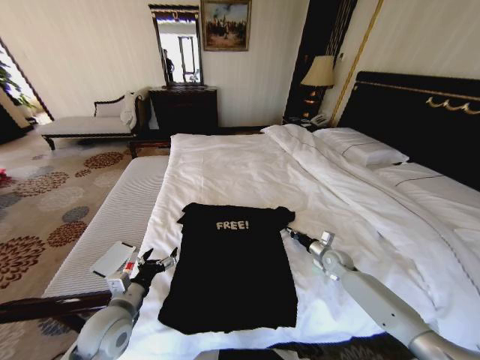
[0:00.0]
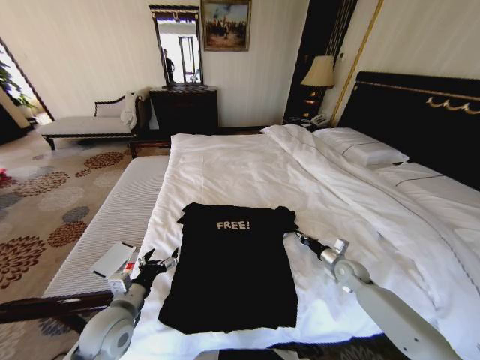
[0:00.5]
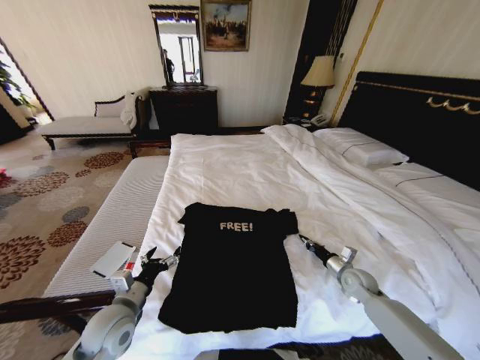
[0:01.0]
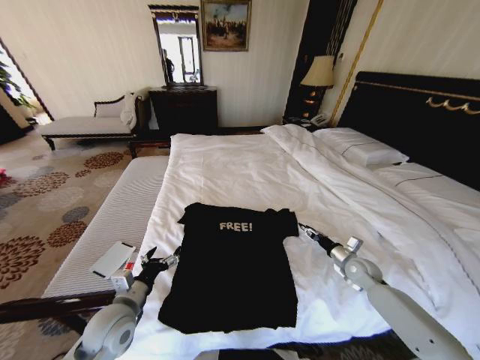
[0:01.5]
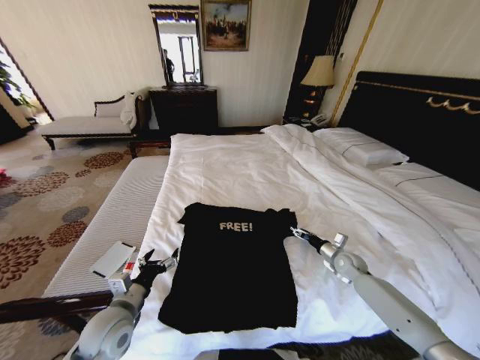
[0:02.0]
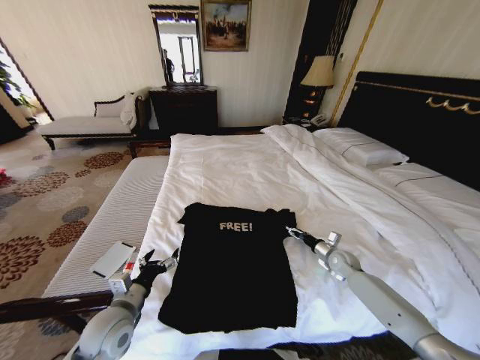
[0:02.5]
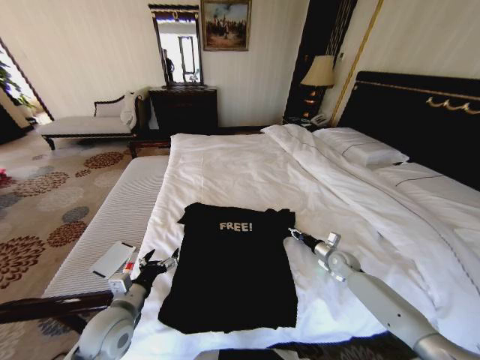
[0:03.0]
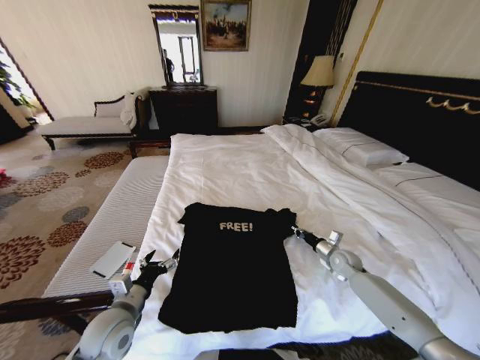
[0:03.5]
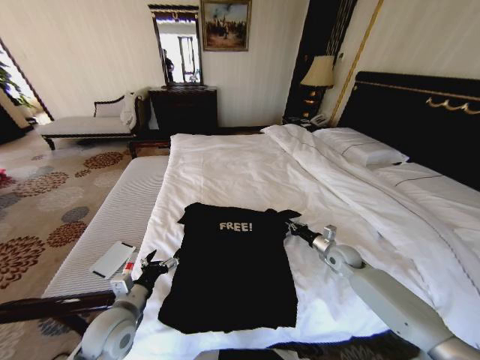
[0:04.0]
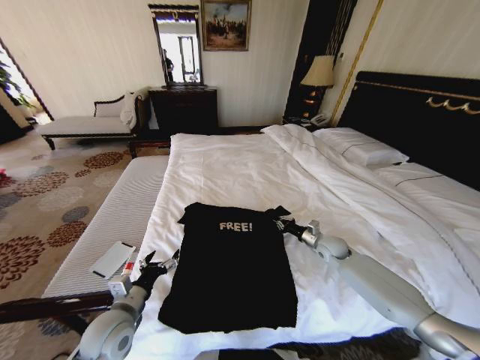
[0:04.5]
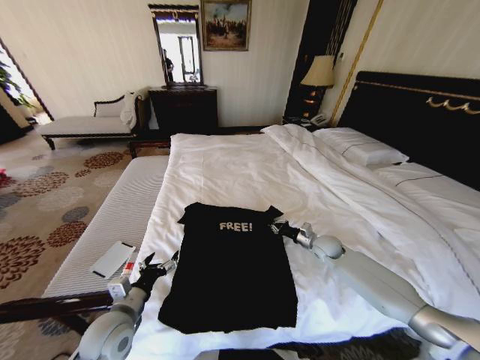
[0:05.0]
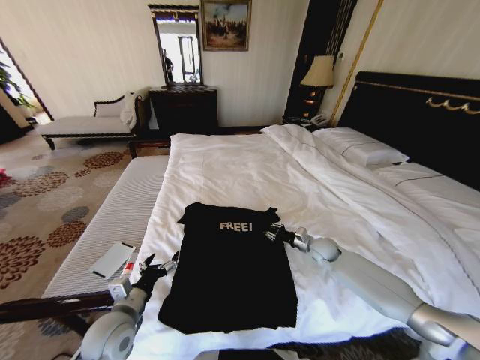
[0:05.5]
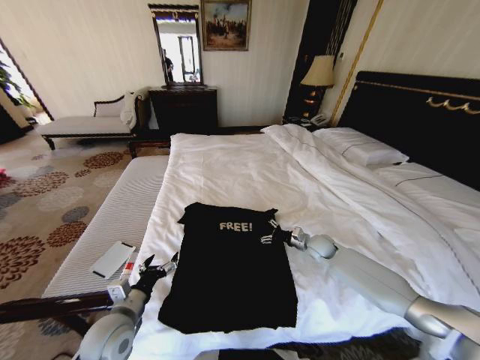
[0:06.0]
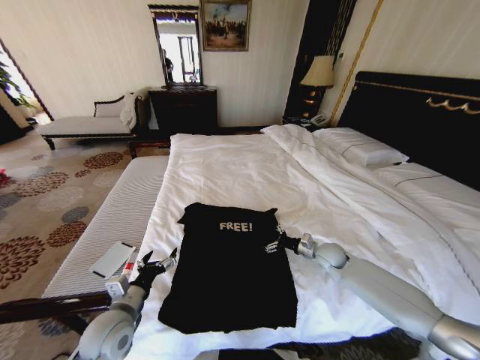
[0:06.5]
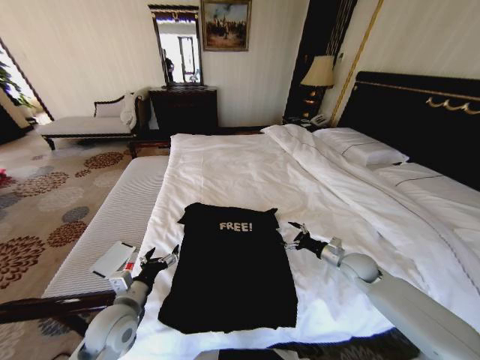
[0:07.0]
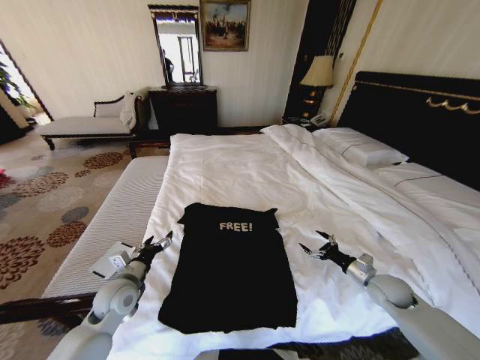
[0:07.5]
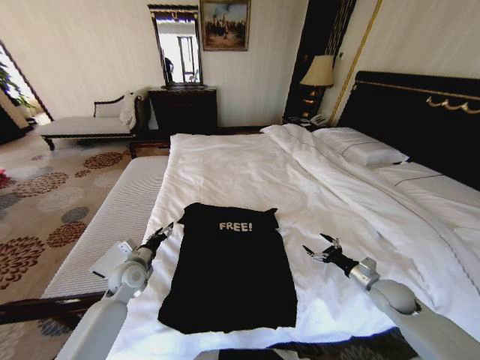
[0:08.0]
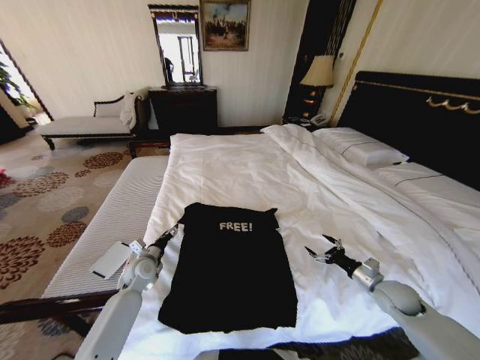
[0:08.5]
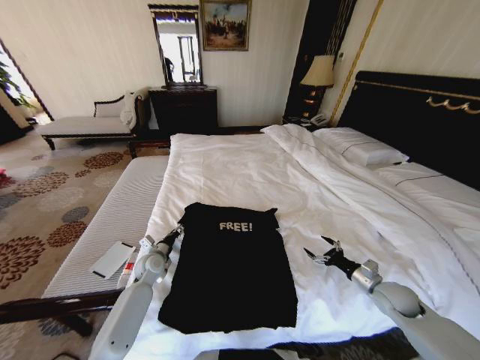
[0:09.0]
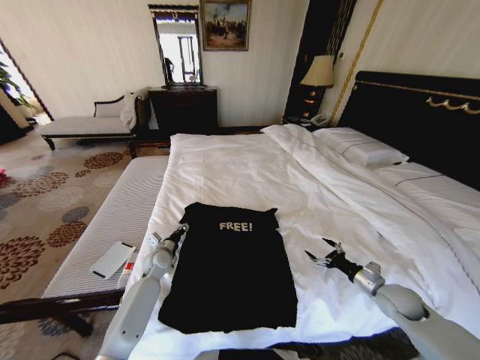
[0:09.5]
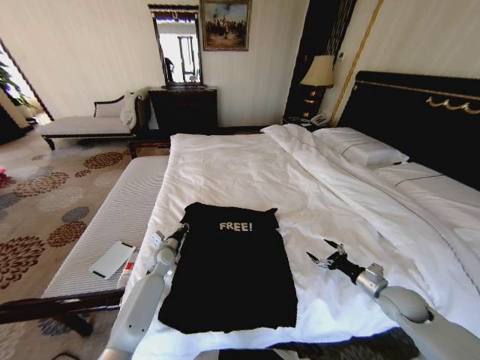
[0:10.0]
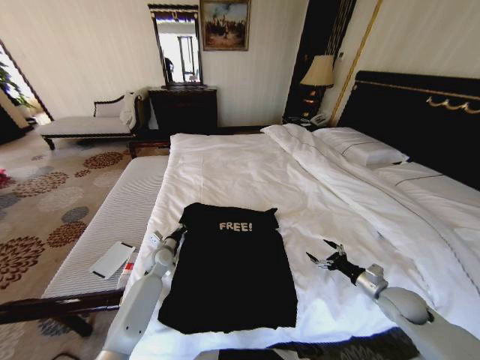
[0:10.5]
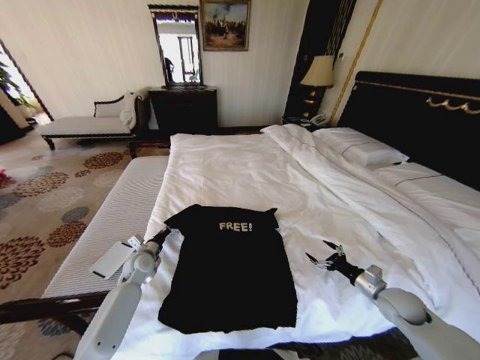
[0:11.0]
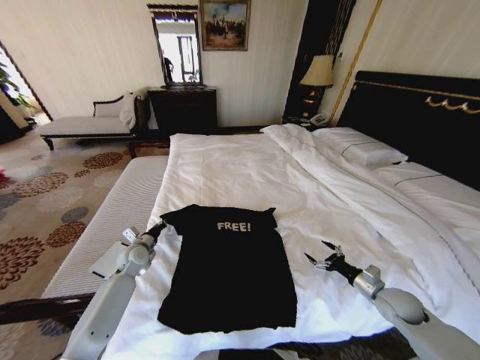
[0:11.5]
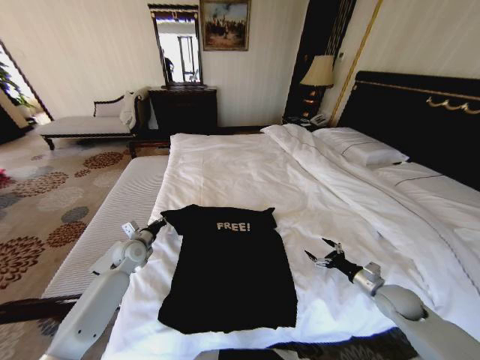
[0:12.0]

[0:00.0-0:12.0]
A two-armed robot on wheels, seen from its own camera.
Task of the whole recording: Fold the clothes on the bed.
0:00.0 to 0:02.0: The right gripper travels backward and back again, roughly 10 cm each way, and opens.
0:02.0 to 0:04.0: The right gripper changes place by roughly 5 cm, and closes.
0:04.0 to 0:06.0: The right gripper is displaced to the left by approximately 5 cm, and opens its fingers.
0:06.0 to 0:08.0: The left gripper shifts about 15 cm forward, while the right gripper moves backward and to the right, some 20 cm.
0:08.0 to 0:10.0: The left gripper is displaced forward, downward and to the right by some 10 cm, and closes its fingers.
0:10.0 to 0:12.0: The left gripper moves to the left and upward, approximately 10 cm.

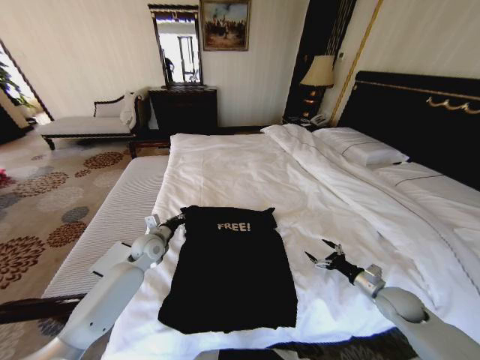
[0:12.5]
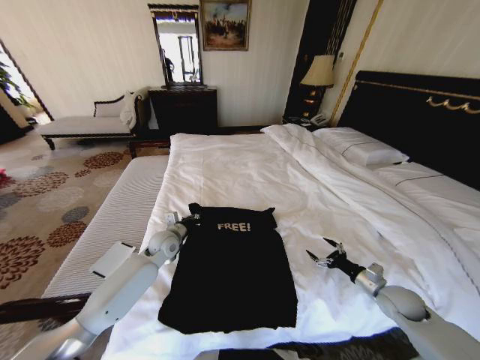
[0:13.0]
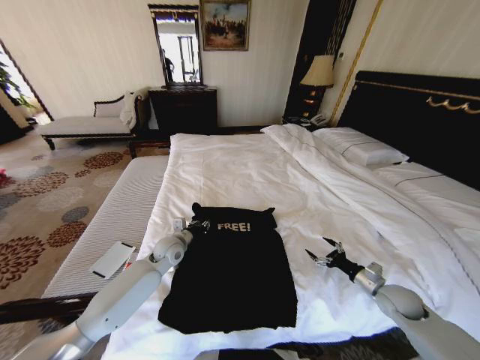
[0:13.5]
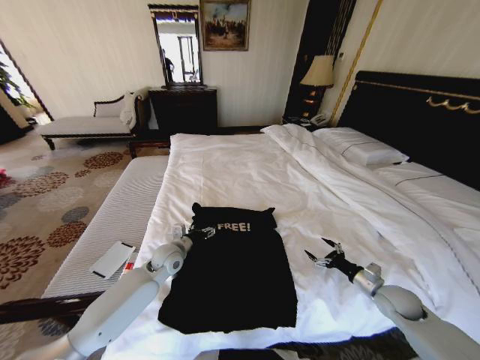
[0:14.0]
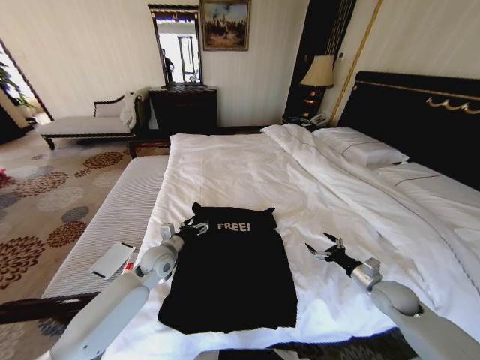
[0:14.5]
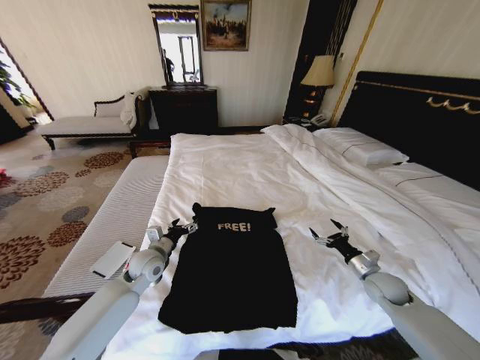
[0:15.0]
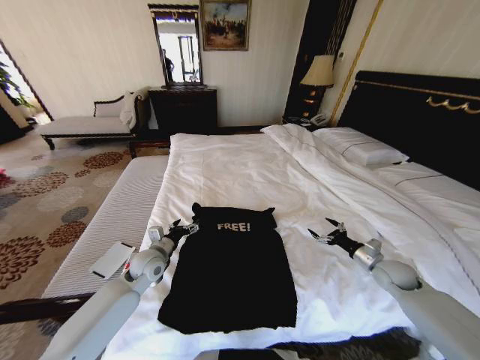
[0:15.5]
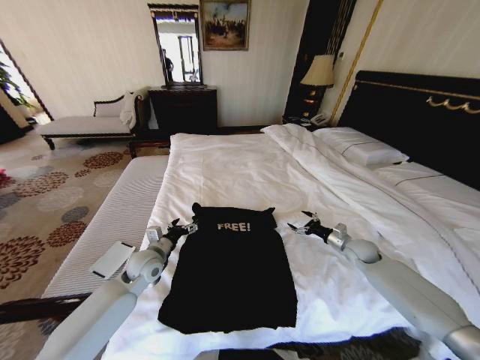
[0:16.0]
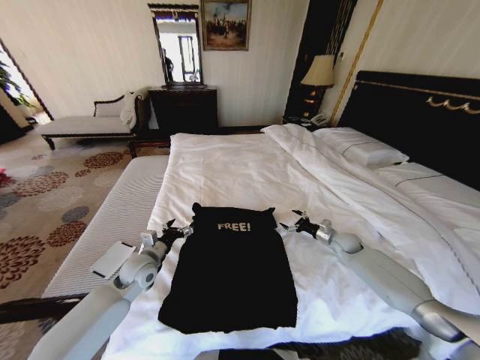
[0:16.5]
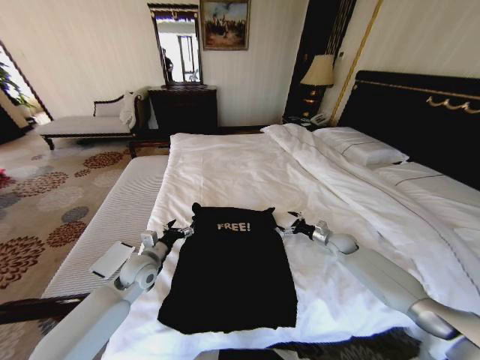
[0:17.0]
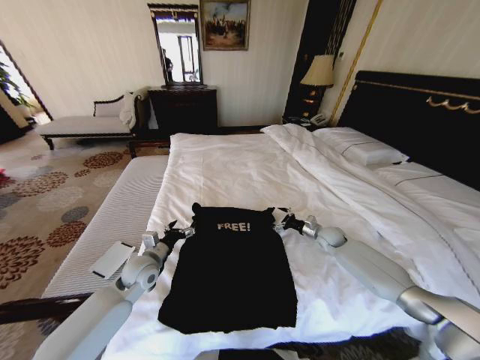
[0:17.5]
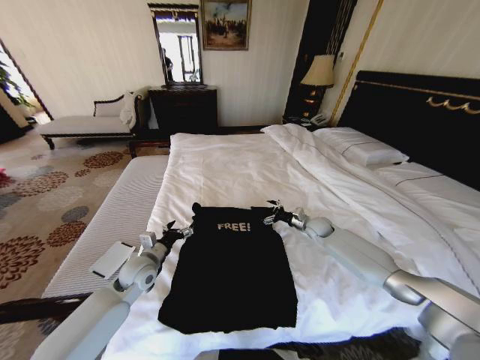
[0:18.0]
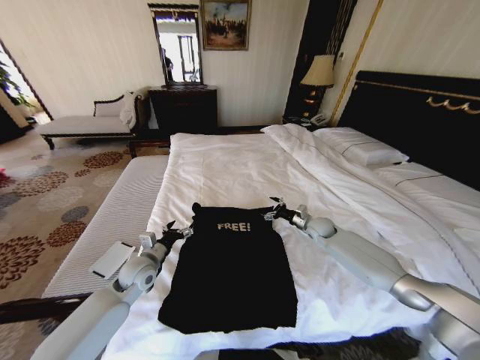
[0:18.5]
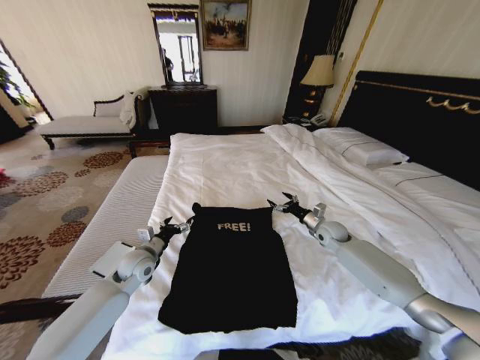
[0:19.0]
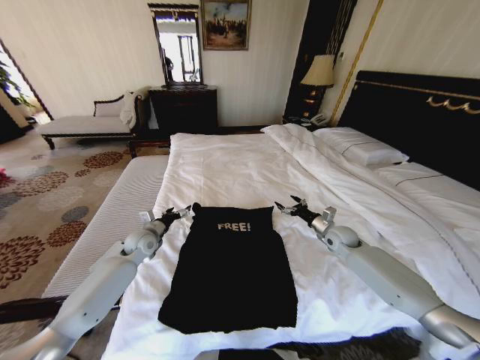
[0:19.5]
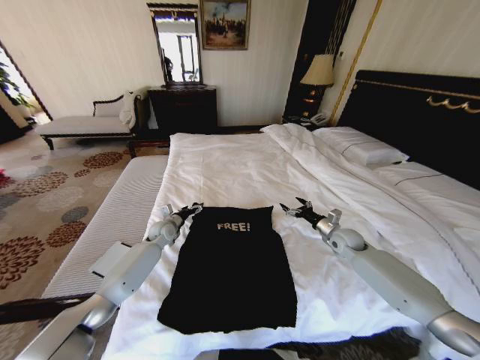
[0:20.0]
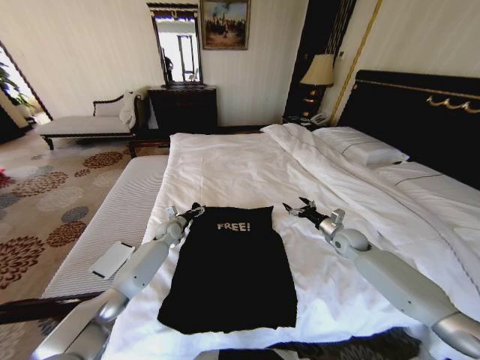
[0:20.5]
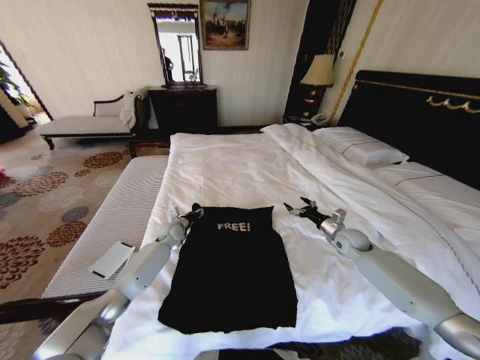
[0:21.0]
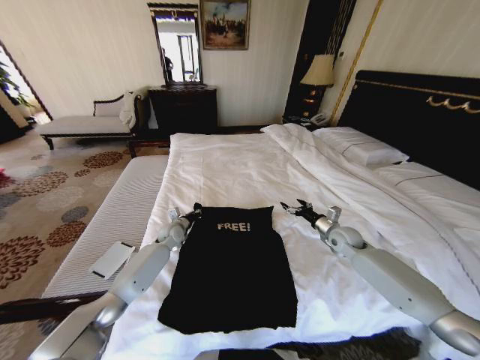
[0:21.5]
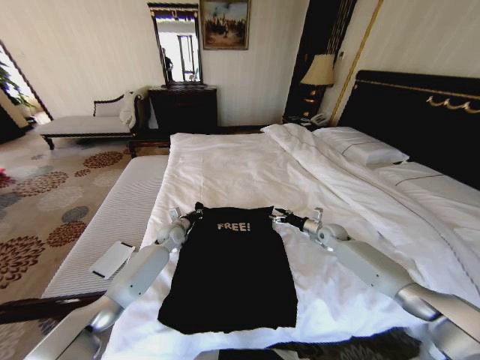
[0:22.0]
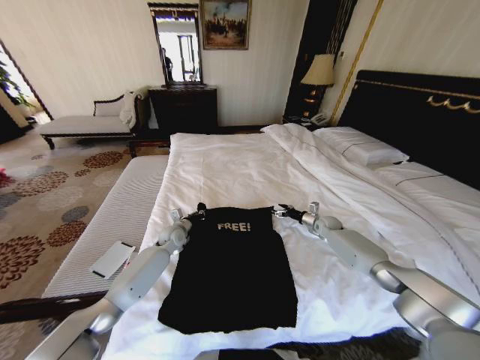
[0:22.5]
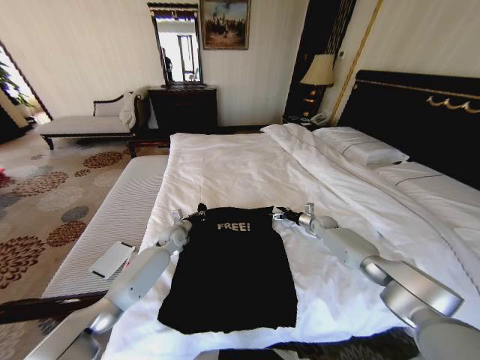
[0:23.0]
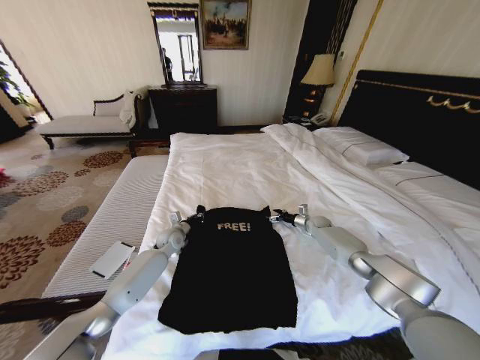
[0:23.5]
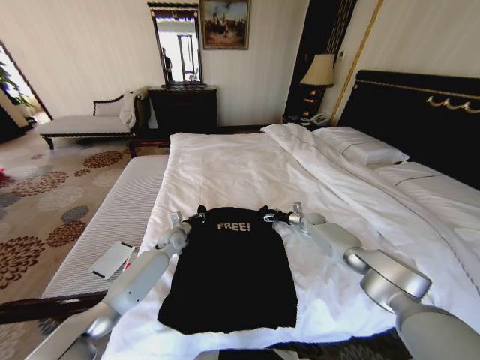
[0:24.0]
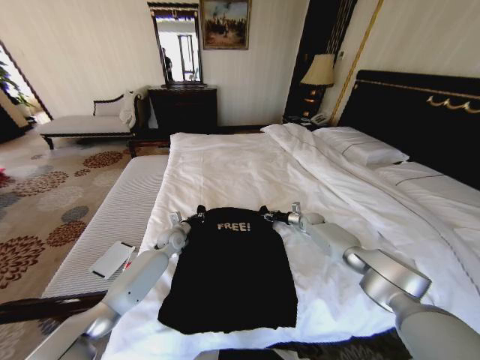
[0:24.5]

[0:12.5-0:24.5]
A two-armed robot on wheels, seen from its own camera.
Task of the whole recording: Fold the clothes on the bed.
0:12.5 to 0:14.5: The left gripper ends up about 5 cm from where it was, and opens.
0:14.5 to 0:16.5: The left gripper shifts by some 5 cm. The right gripper is displaced forward by approximately 20 cm.
0:16.5 to 0:18.5: The right gripper heads to the left, covering some 10 cm.
0:18.5 to 0:20.5: The left gripper shifts approximately 20 cm forward; the right gripper travels to the right and backward by approximately 10 cm.
0:20.5 to 0:22.5: The left gripper closes up; the right gripper moves forward and downward, some 15 cm.
0:22.5 to 0:24.5: The right gripper moves about 5 cm, and closes.

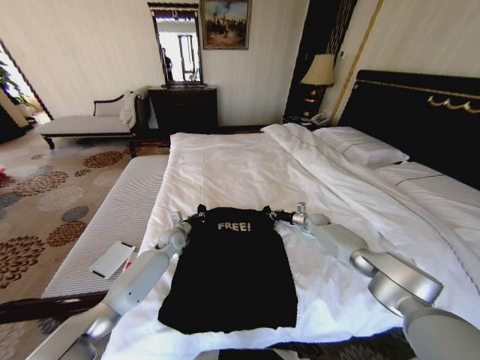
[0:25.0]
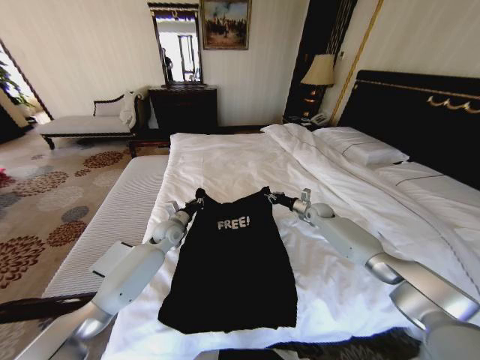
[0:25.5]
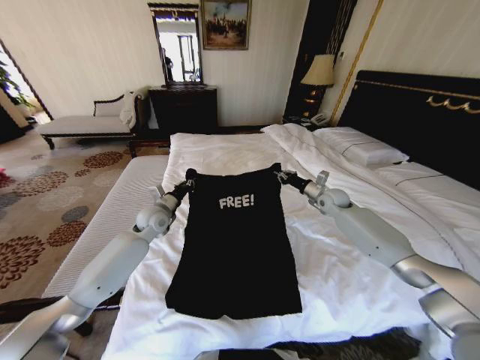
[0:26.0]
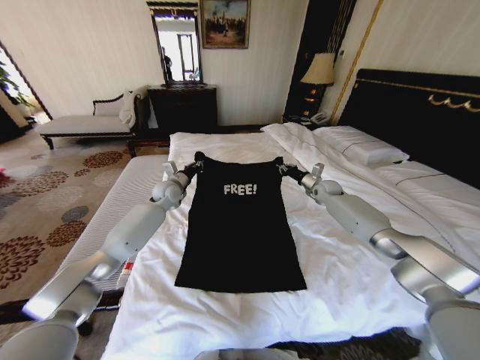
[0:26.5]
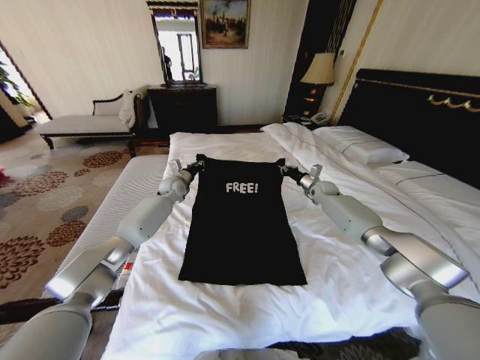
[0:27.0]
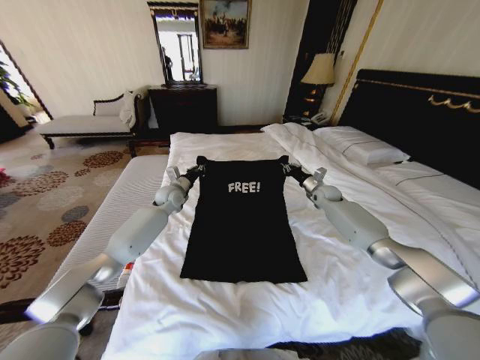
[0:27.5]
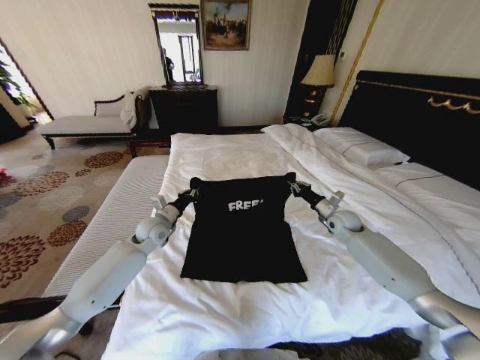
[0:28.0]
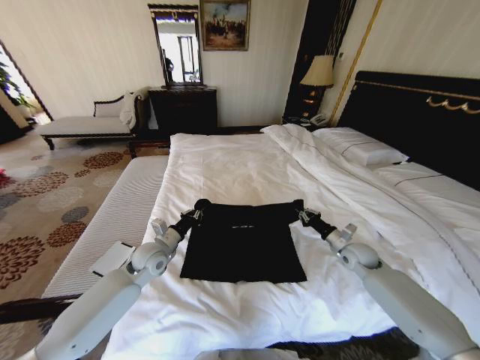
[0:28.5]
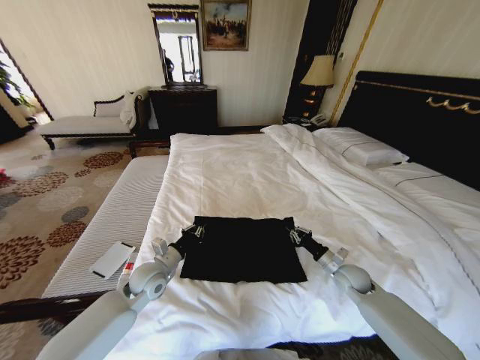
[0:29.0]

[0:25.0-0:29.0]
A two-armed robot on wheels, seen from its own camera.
Task of the whole recording: Fold the clothes on the bed.
0:25.0 to 0:27.0: The right gripper is displaced upward by some 15 cm. The left gripper heads forward and upward, covering some 20 cm.
0:27.0 to 0:29.0: The right gripper heads backward and downward, covering roughly 35 cm; the left gripper travels backward by some 30 cm.
